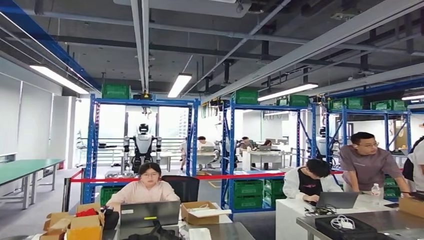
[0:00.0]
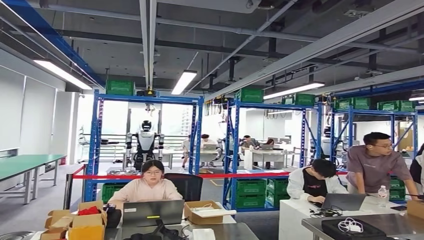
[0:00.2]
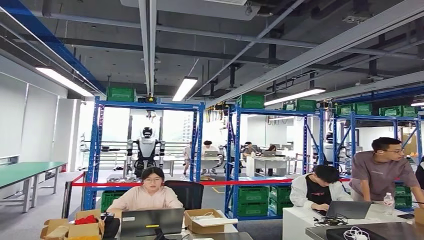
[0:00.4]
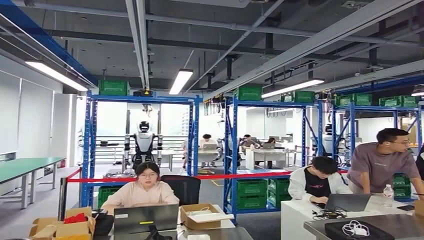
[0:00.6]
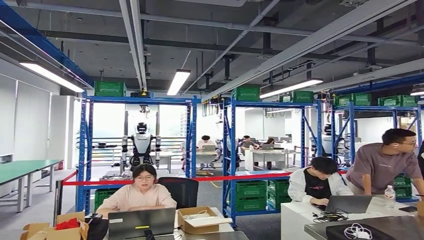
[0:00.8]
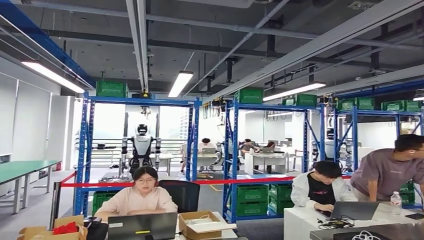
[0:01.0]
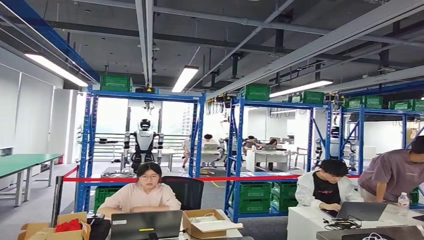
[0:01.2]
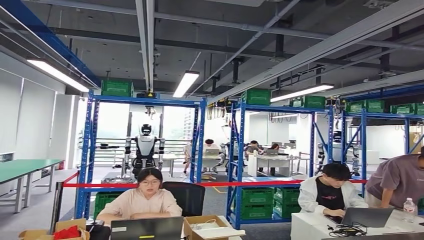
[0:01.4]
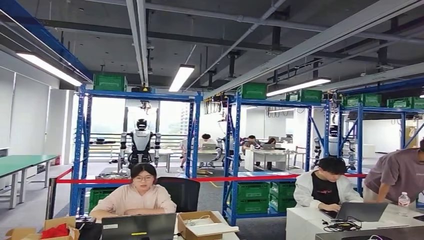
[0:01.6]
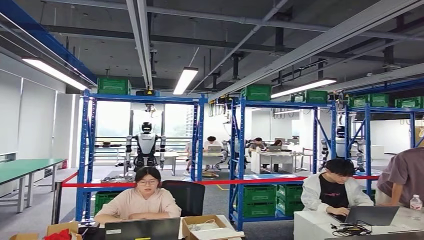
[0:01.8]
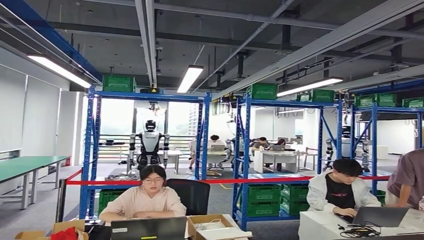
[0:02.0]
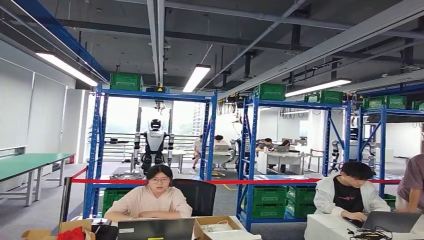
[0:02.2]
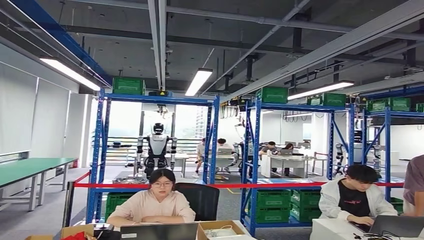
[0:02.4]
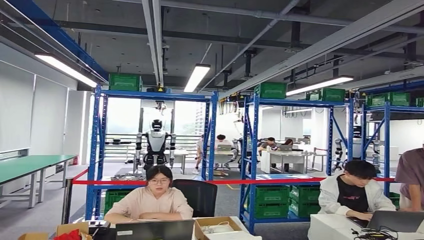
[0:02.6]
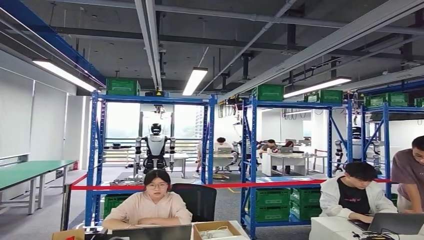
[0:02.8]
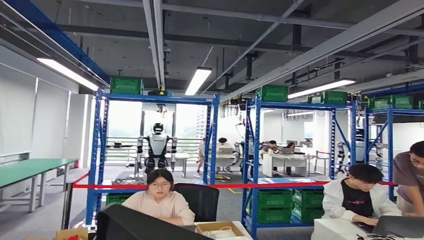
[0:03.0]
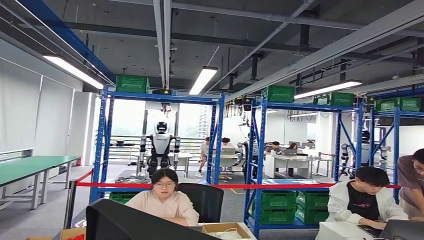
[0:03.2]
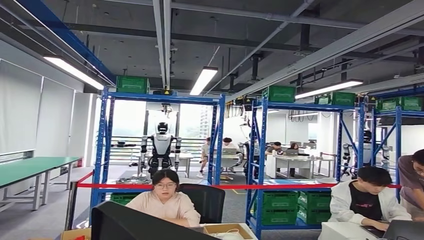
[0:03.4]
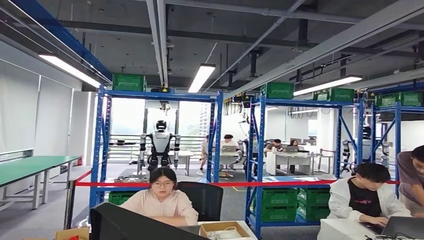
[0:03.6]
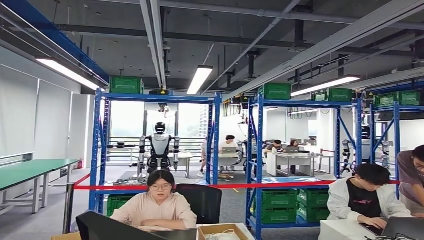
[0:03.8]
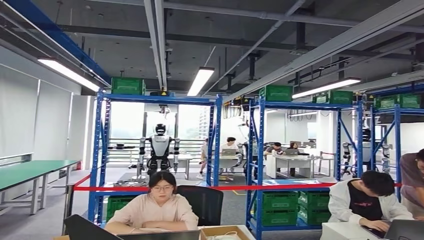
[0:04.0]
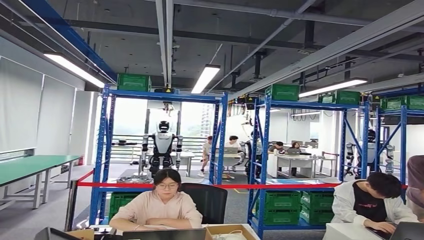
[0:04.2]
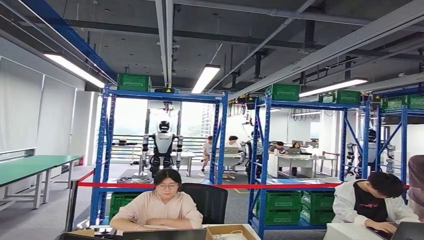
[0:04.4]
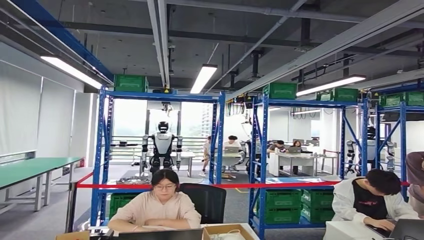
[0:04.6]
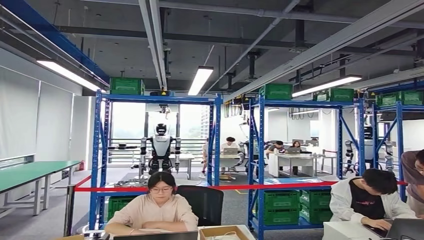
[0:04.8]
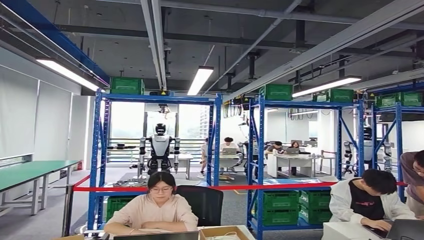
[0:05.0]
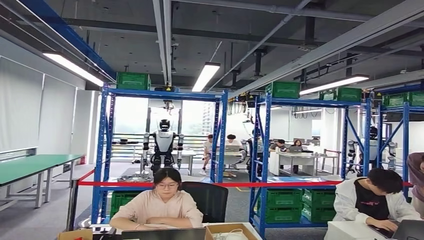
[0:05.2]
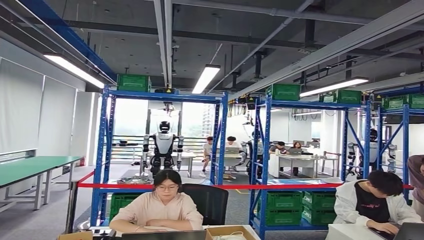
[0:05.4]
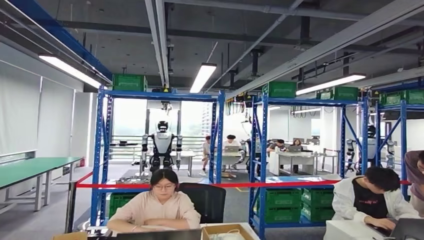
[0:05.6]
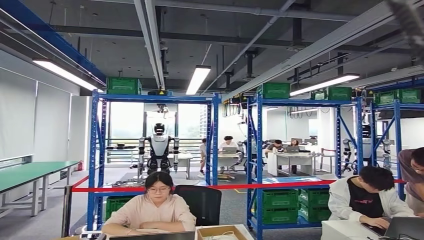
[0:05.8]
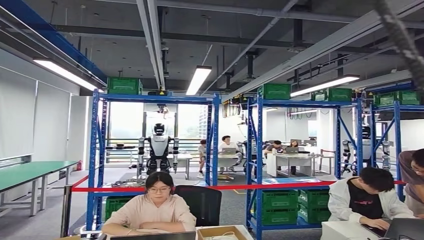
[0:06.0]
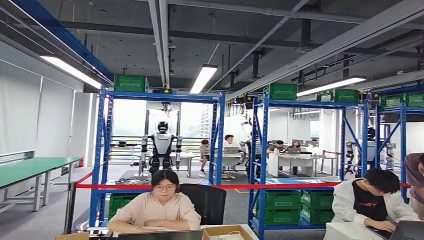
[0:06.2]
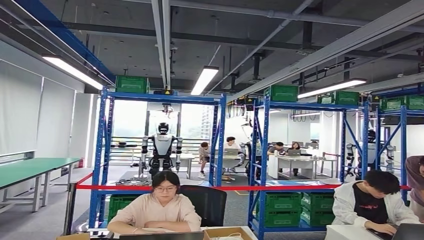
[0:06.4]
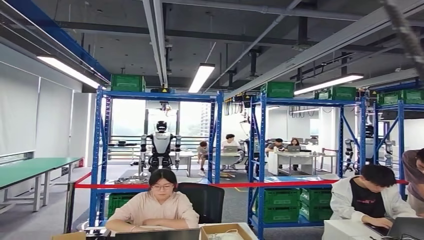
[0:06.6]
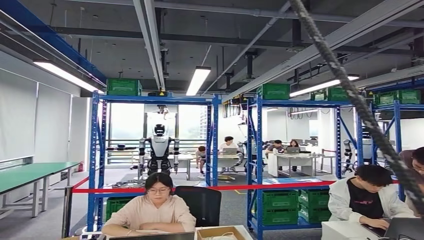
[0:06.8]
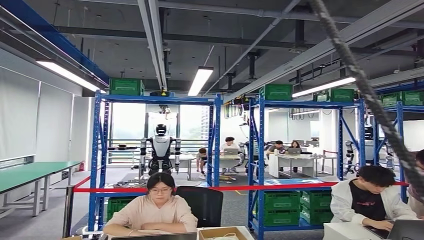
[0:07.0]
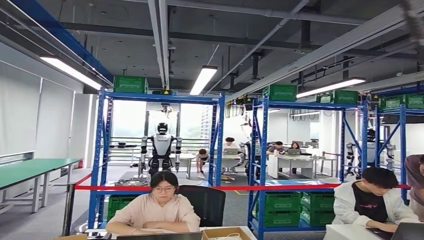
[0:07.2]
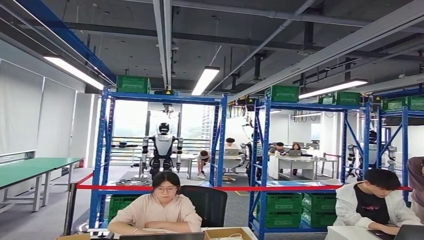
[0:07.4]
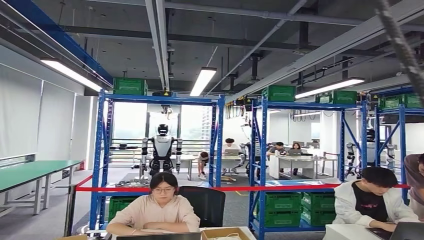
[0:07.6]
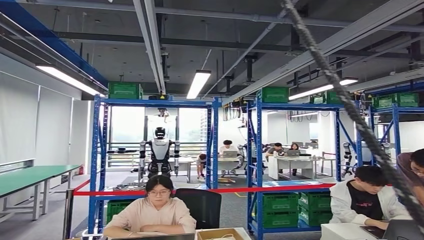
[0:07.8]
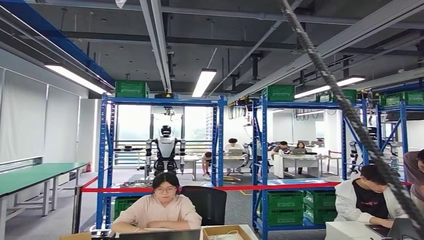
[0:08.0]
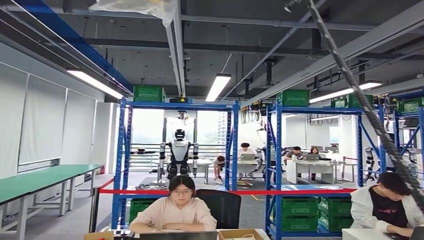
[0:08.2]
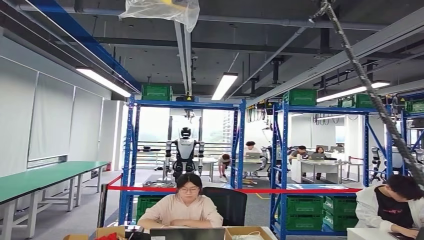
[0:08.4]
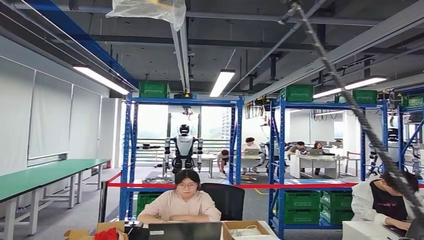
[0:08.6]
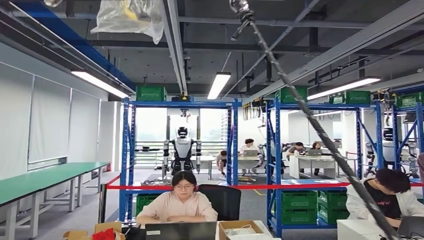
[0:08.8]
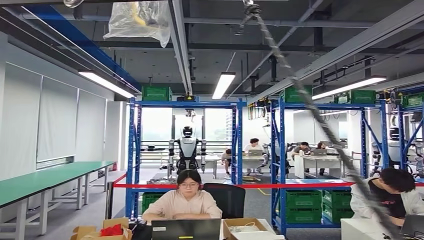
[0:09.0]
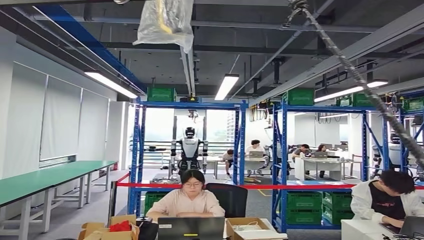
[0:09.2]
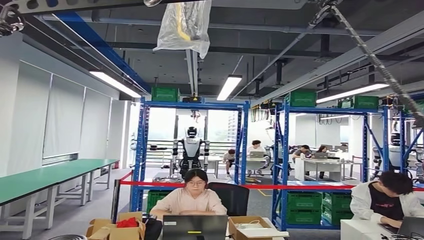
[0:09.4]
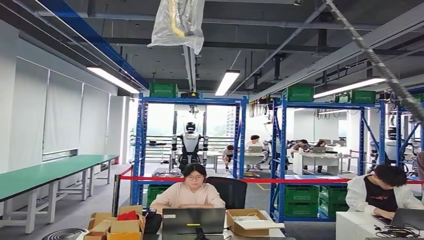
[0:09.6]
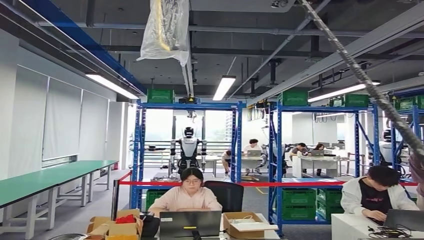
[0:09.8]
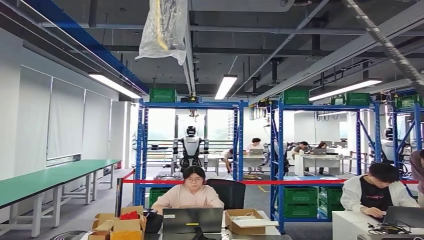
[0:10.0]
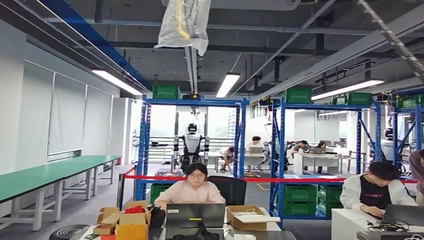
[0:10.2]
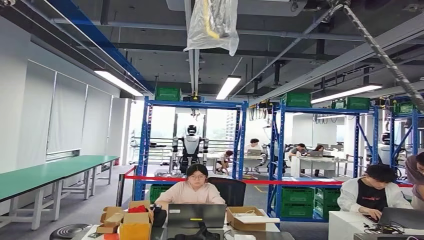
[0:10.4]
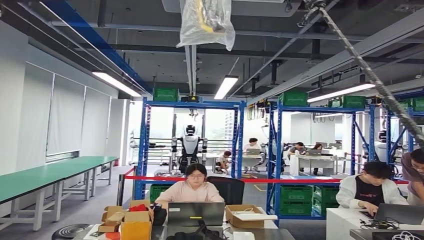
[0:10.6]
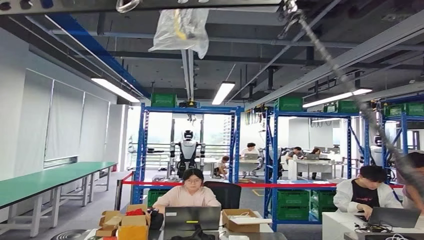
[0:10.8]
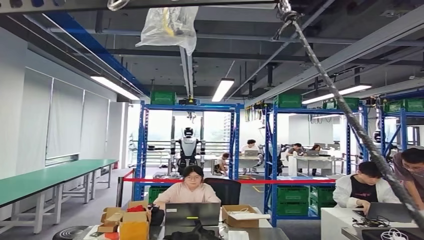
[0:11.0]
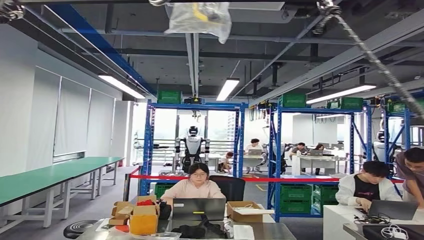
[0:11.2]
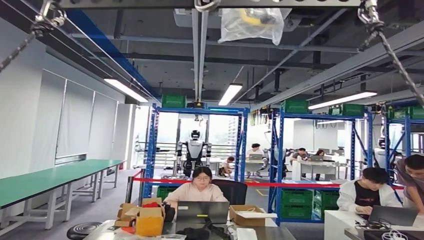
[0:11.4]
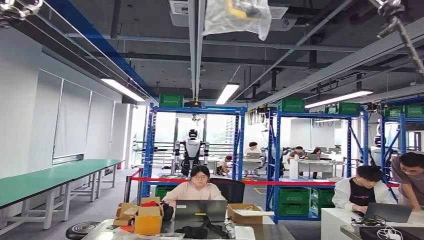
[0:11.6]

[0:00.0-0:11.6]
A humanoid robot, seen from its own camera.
Step, 0:00.0 to 0:03.2: Move the small component to the workbench.
Step, 0:03.4 to 0:06.8: Insert the small component into the corresponding slot on the workbench.
Step, 0:07.0 to 0:11.6: Move to the initial position at the workbench.
